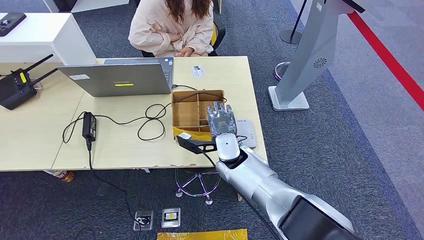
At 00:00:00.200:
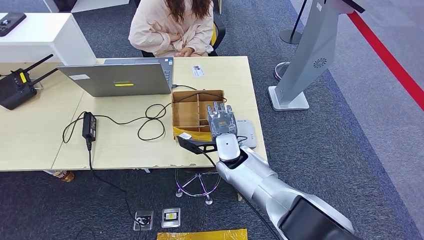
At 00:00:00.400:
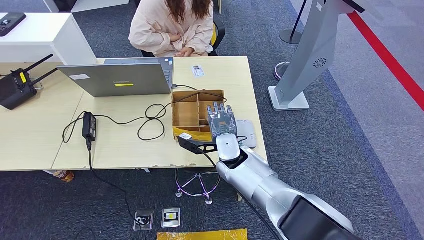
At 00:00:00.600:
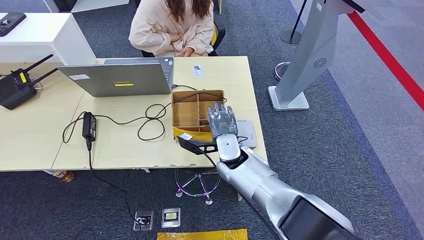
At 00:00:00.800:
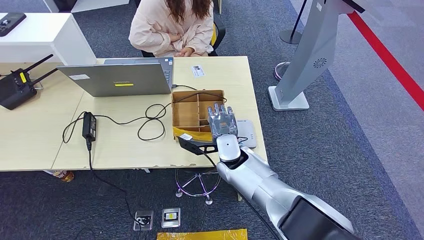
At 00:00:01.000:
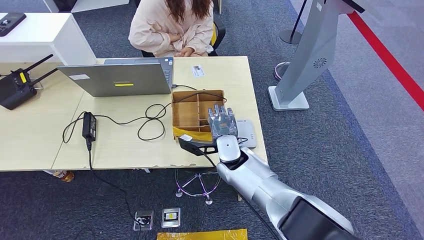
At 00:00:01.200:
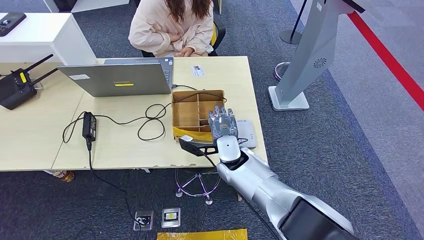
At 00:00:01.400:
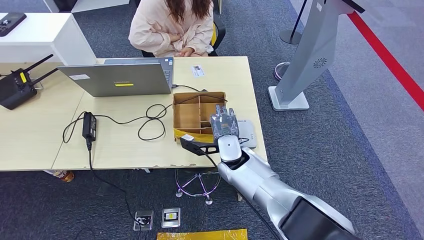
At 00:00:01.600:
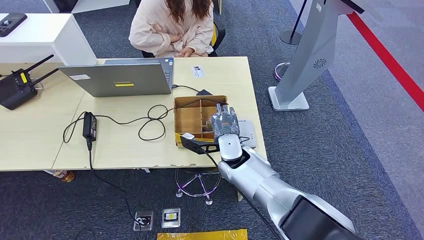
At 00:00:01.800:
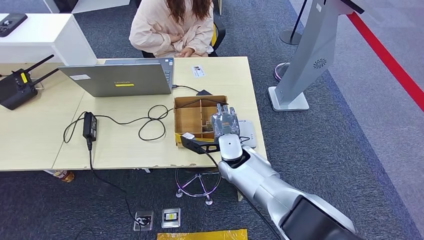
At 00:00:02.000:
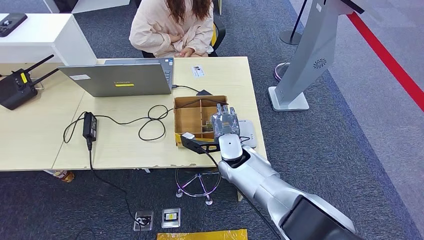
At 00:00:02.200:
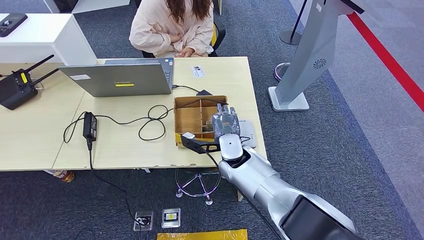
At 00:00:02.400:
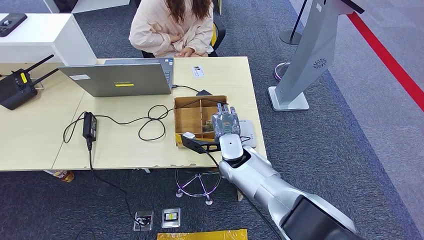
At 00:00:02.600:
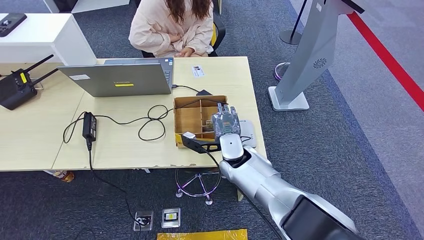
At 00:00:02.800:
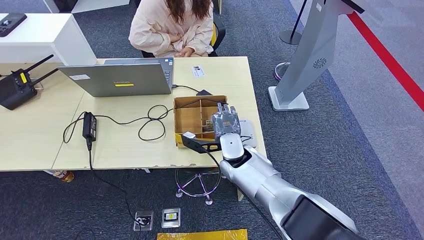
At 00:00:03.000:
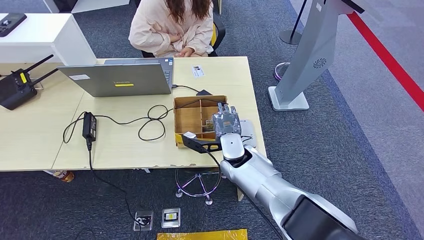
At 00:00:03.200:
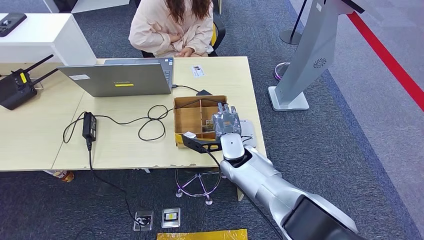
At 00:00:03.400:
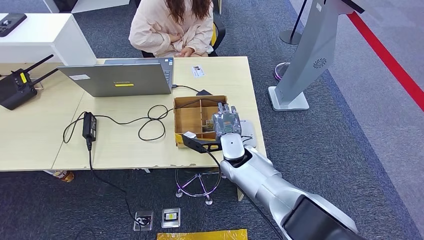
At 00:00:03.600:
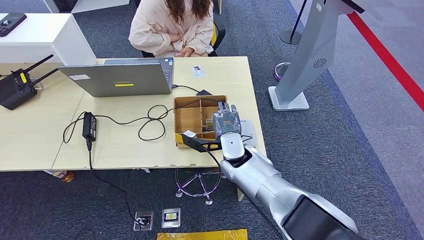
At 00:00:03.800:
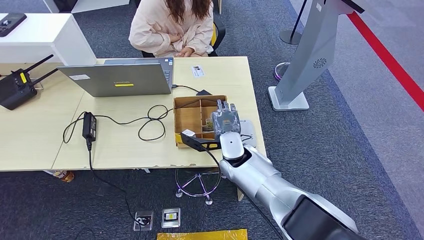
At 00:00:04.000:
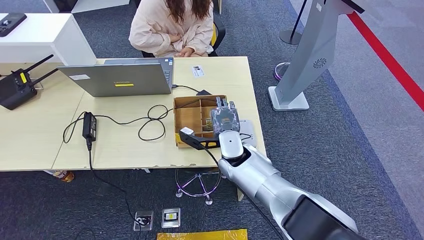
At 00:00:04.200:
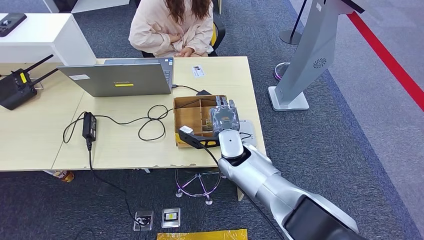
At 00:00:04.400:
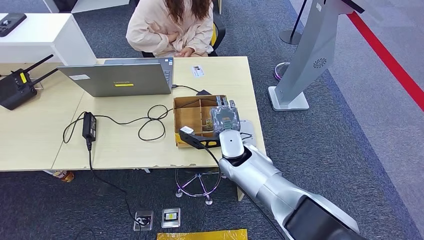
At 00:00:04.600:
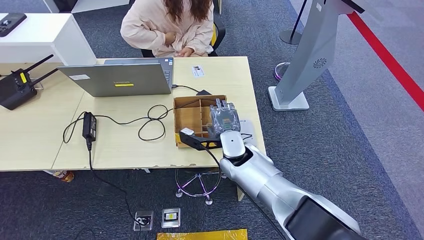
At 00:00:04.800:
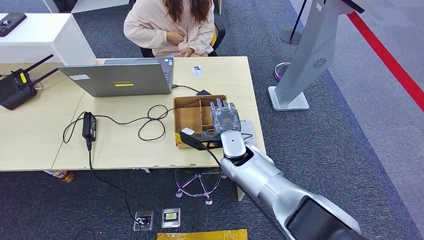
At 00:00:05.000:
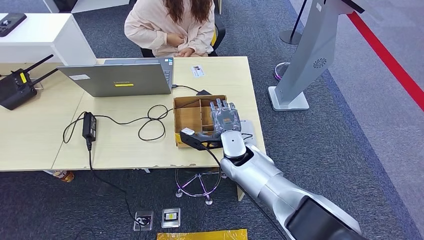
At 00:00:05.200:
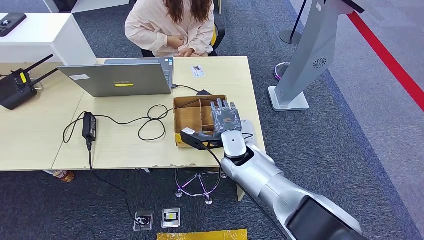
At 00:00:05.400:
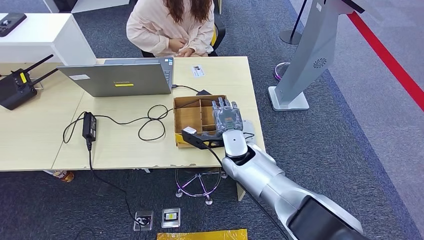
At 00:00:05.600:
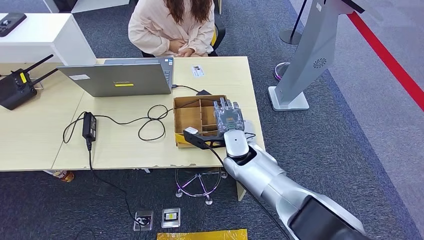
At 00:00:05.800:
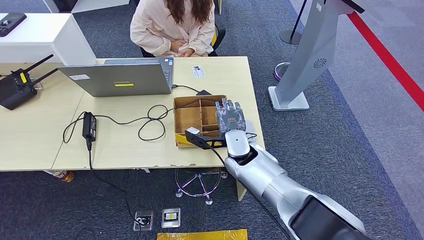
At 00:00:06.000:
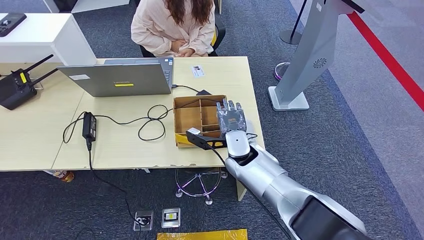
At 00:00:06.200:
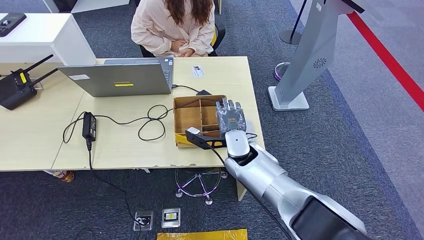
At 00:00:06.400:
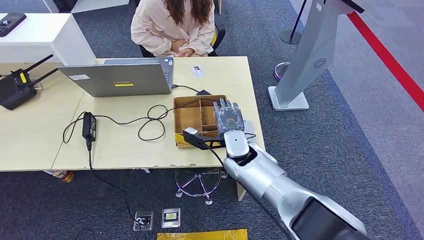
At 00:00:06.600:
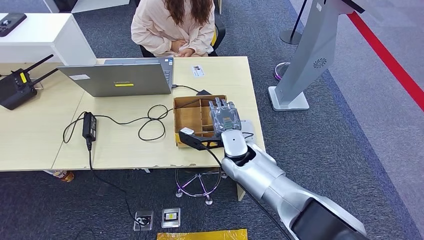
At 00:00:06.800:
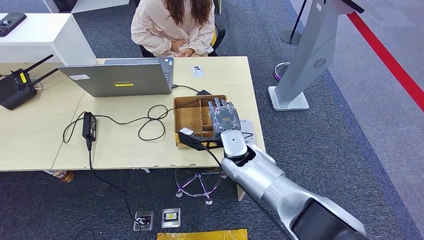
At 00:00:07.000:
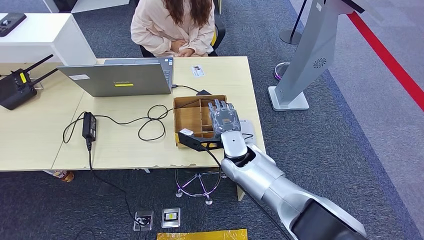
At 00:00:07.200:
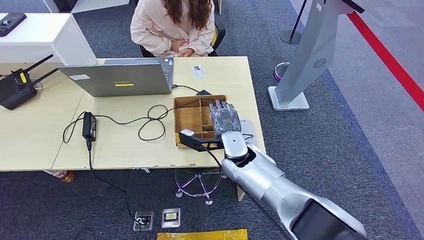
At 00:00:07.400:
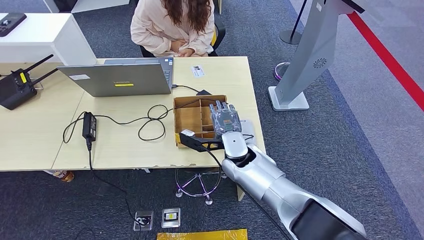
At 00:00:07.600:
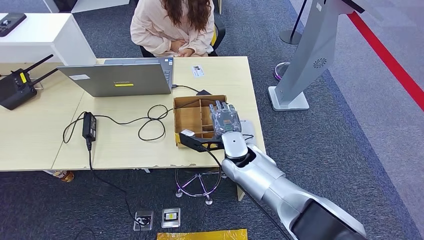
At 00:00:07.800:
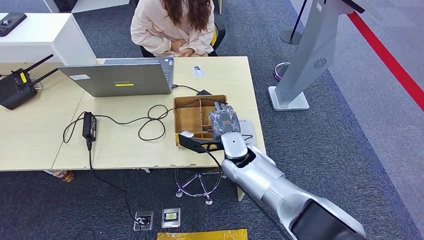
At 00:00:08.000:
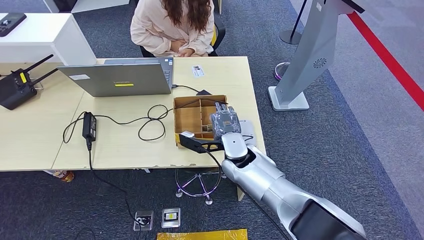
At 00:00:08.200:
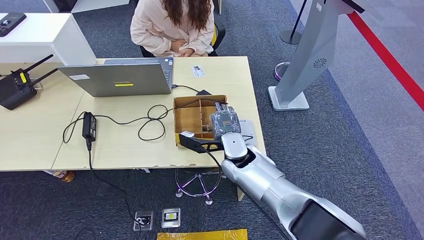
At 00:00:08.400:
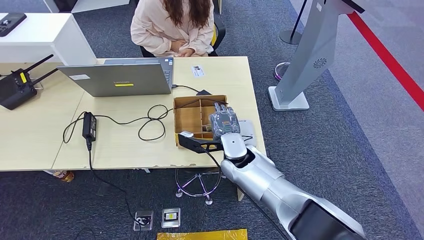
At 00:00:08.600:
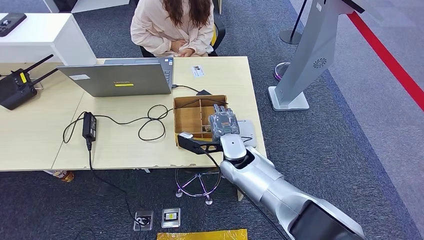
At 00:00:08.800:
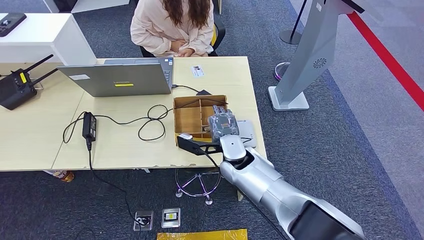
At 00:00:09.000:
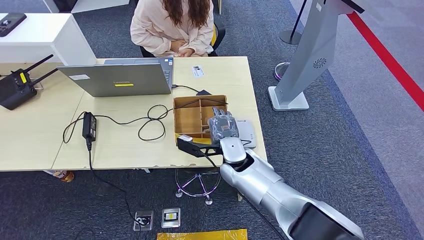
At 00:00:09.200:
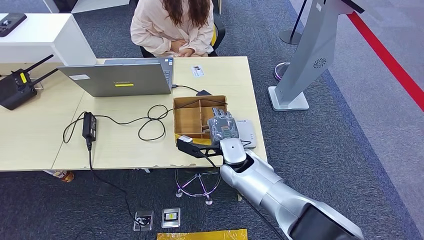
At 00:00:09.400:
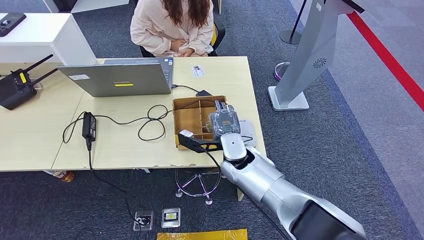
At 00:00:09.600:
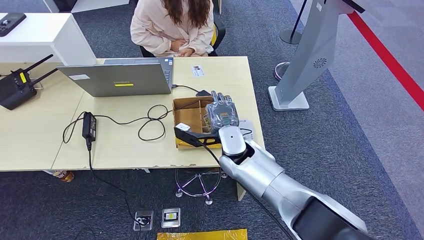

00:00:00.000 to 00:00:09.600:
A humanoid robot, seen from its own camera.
00:00:00.000 to 00:00:01.600: Both hands stay put.
00:00:01.600 to 00:00:03.200: The two hands keep their place.
00:00:03.200 to 00:00:04.800: There are only small adjustments of the hands.
00:00:04.800 to 00:00:08.000: Both hands stay about where they are.
00:00:08.000 to 00:00:09.600: The hands stay close to where they were, moving slightly.

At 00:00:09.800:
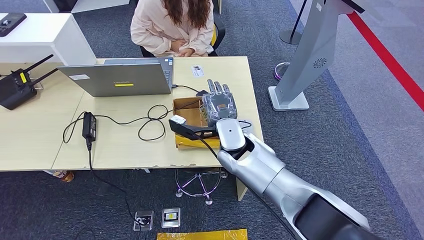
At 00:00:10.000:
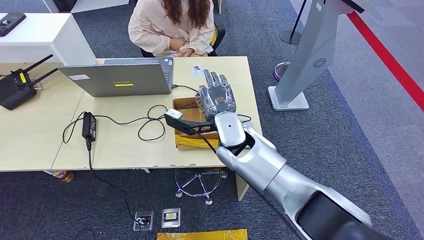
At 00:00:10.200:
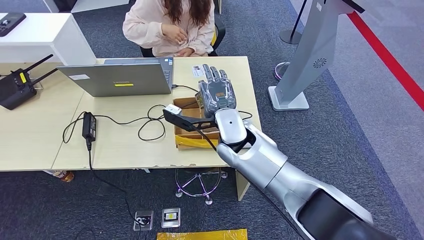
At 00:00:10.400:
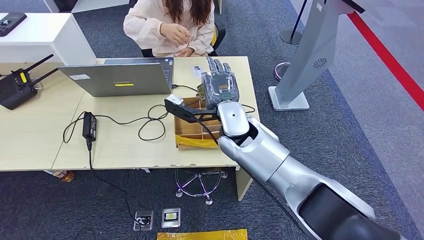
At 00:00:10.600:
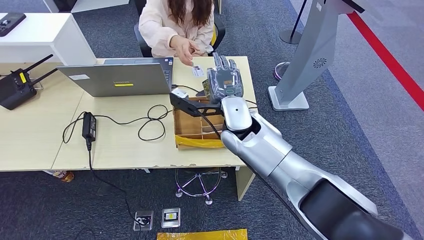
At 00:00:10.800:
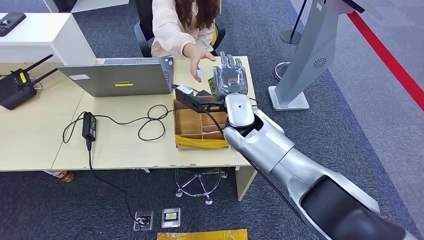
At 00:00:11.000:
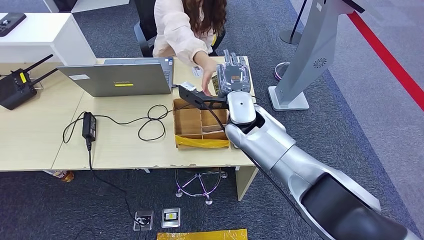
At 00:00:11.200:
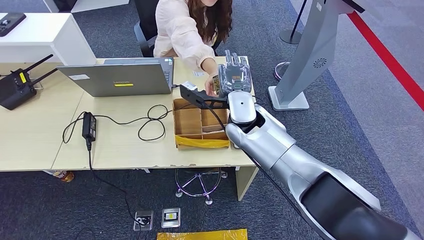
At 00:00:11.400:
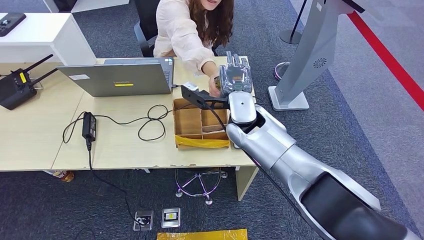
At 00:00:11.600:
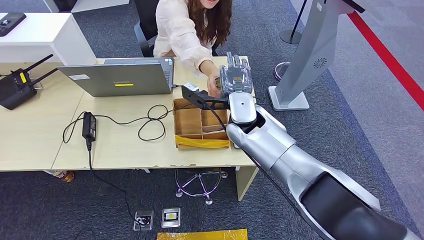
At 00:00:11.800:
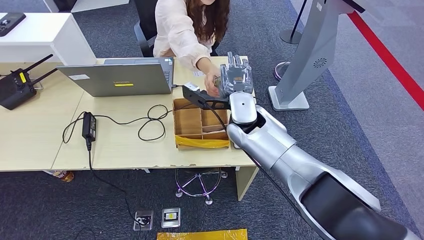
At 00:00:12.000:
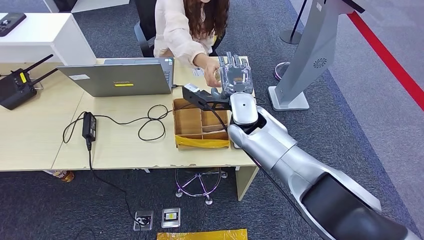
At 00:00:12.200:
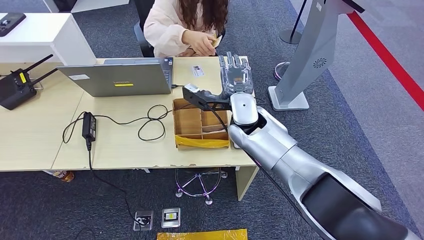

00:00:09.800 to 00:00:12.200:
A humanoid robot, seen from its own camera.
Step, 00:00:10.800 to 00:00:12.200: Hand the room key to the person.
00:00:09.800 to 00:00:11.000: The right hand moves upward, about 5 cm.
00:00:11.000 to 00:00:12.200: Neither hand changes place.
